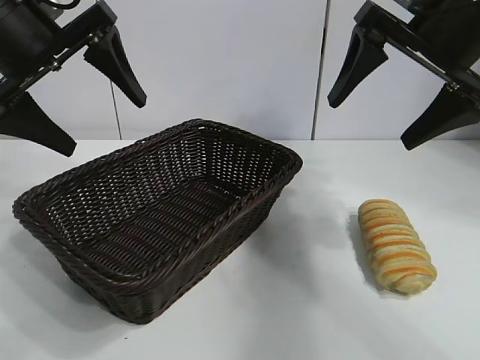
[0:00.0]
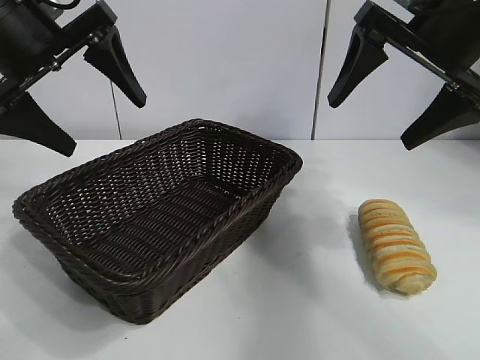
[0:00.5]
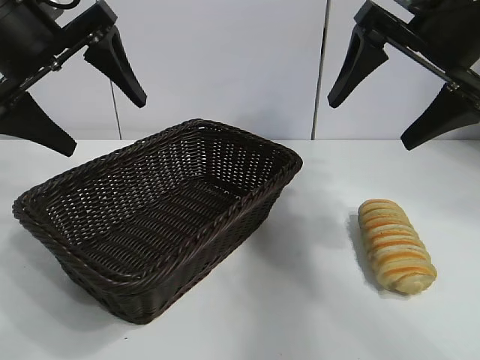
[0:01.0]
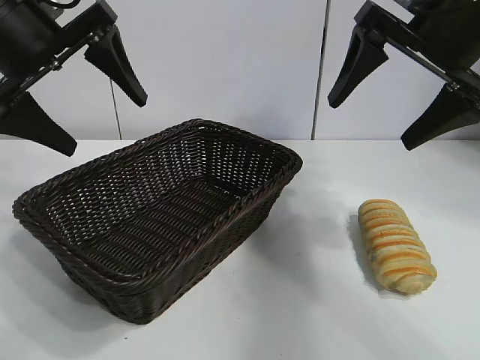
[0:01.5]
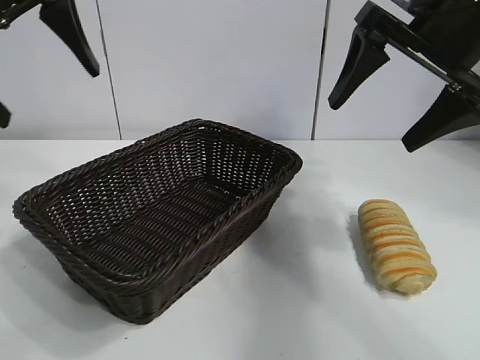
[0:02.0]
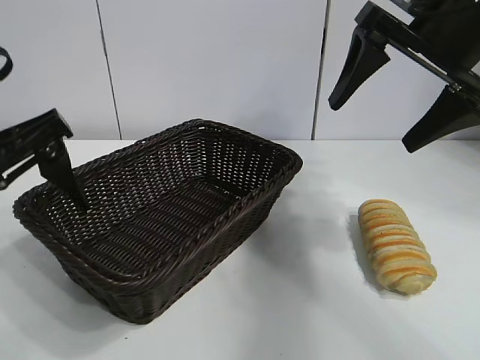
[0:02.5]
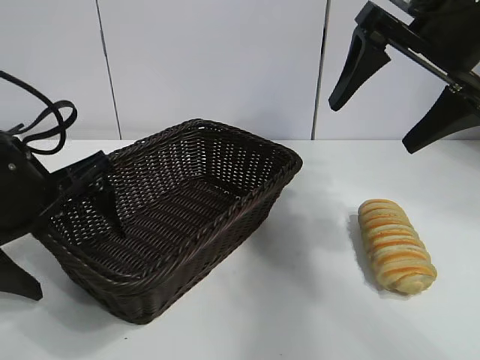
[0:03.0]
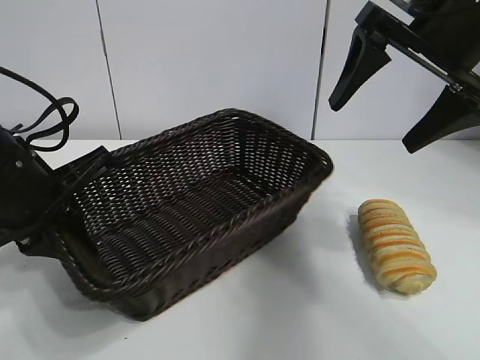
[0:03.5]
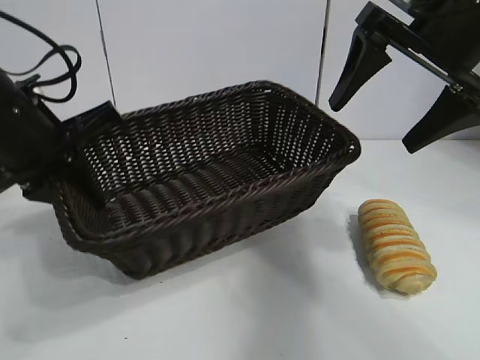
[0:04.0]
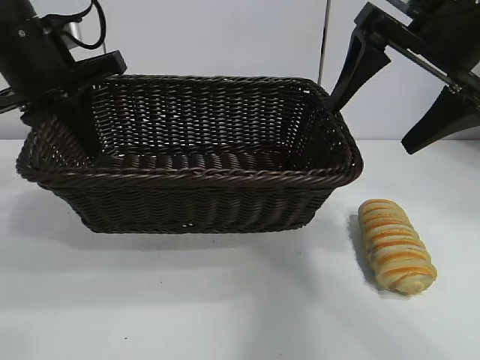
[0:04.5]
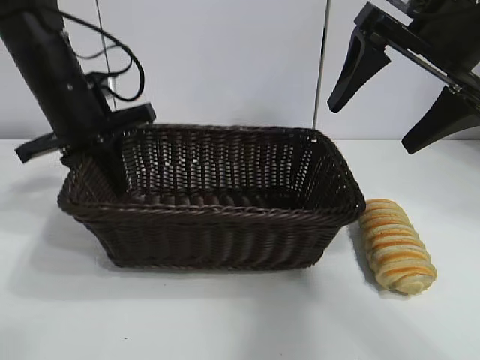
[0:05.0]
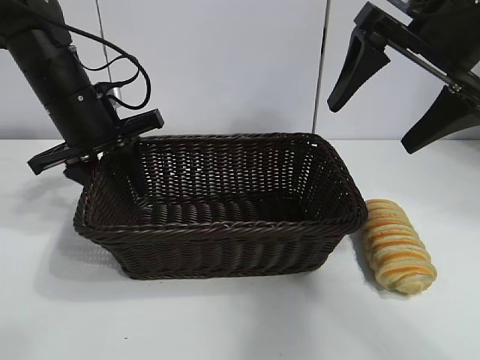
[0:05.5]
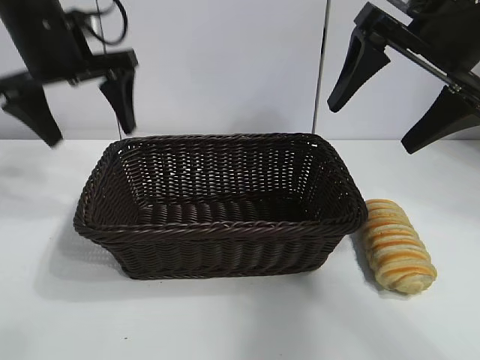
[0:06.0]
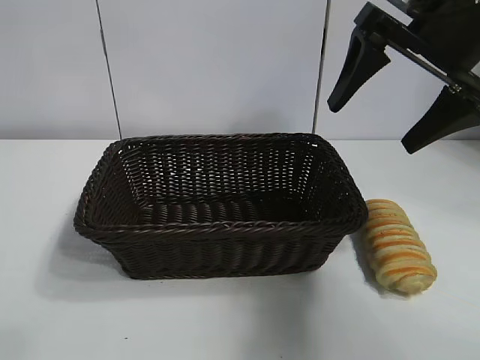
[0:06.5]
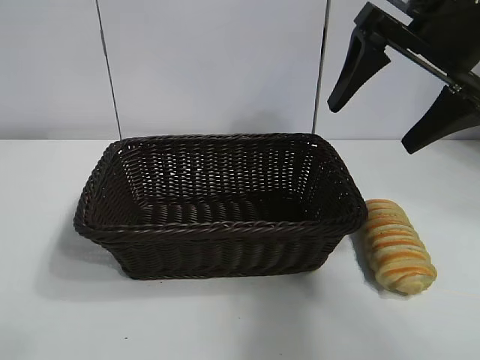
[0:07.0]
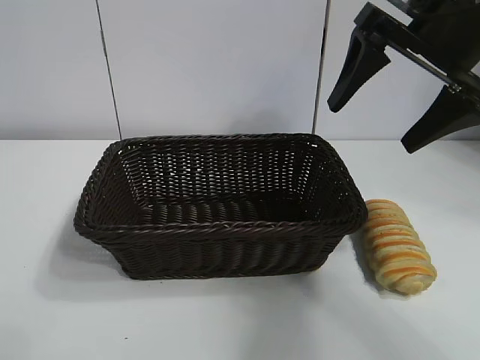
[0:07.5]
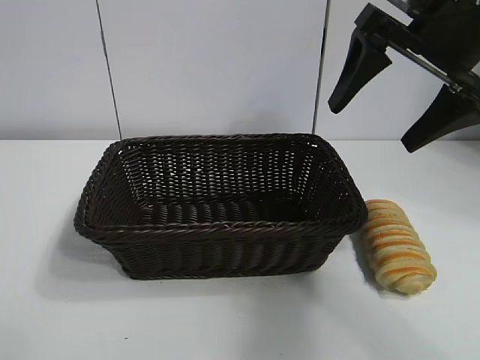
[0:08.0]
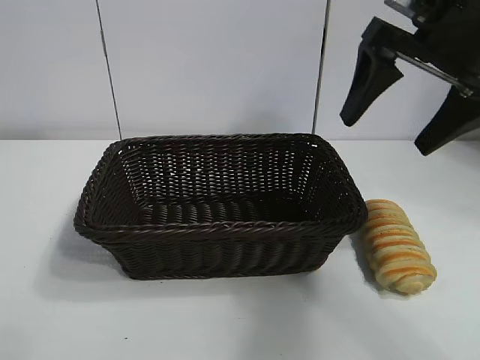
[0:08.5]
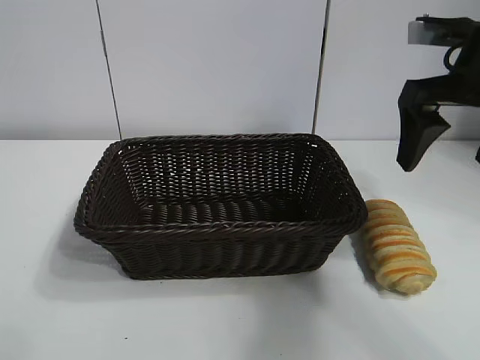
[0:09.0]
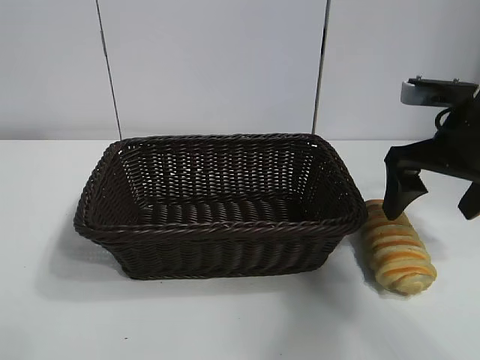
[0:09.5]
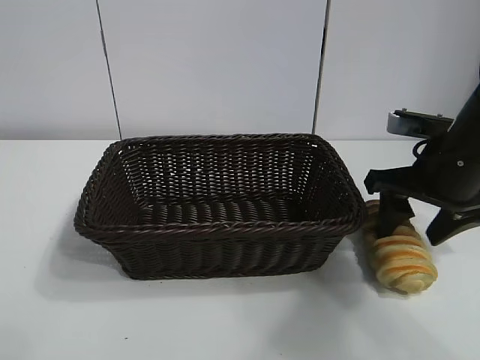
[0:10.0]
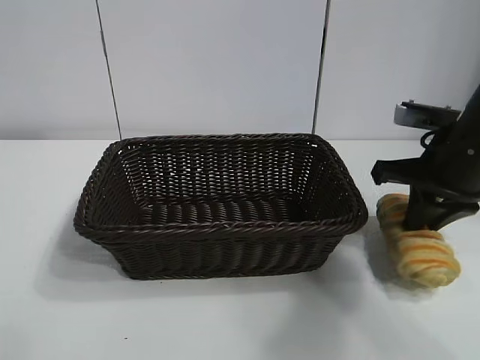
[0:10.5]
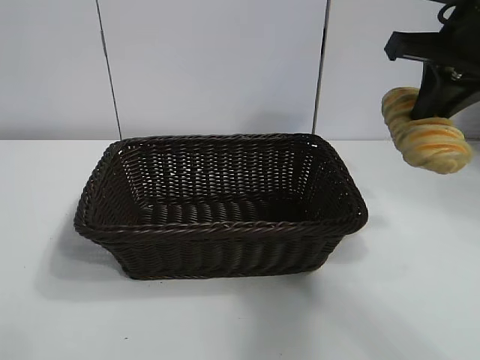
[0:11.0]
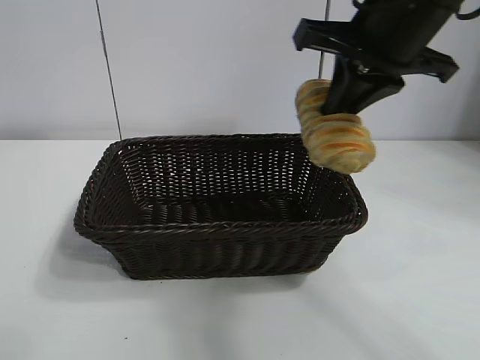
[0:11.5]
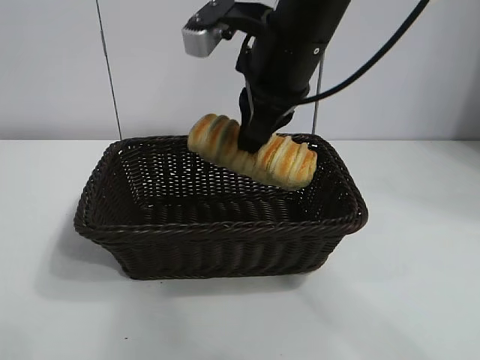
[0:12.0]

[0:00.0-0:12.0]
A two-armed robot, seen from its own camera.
Task of the whole recording: pick up the long bread and put it into the basket.
Step, 0:01.5 to 0:03.0: Grasp the basket with the left gripper.
Step, 0:04.0 to 0:05.5: Place the basket in the center of the table with the left gripper.
Step, 0:06.0 to 0:10.0: Grasp the long bread with right gripper.
